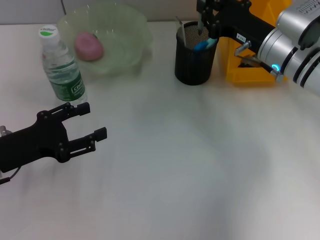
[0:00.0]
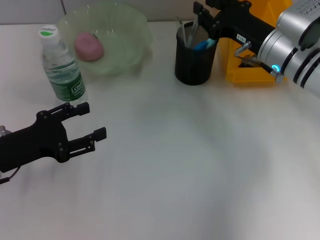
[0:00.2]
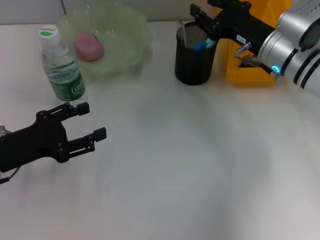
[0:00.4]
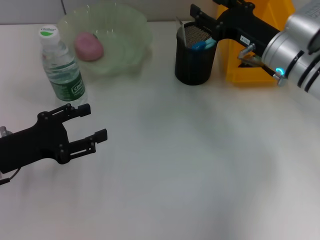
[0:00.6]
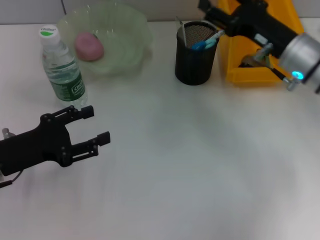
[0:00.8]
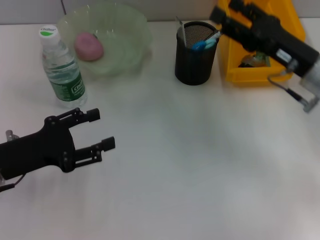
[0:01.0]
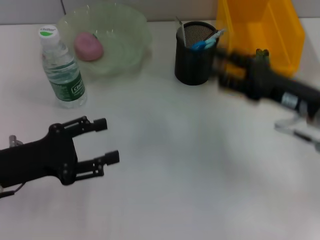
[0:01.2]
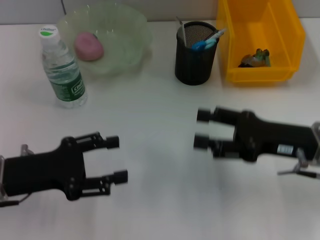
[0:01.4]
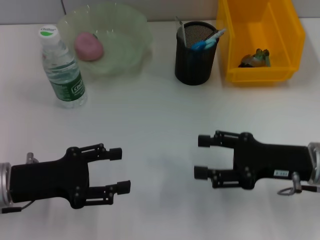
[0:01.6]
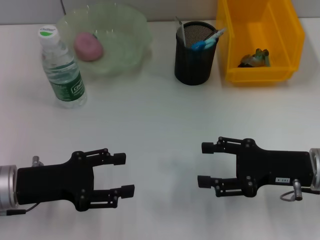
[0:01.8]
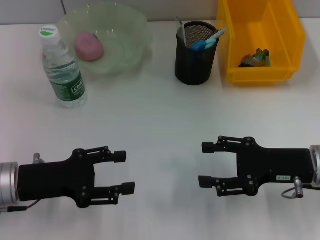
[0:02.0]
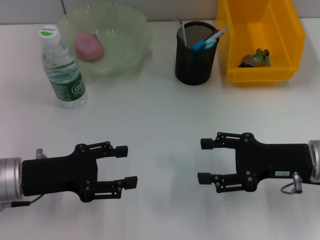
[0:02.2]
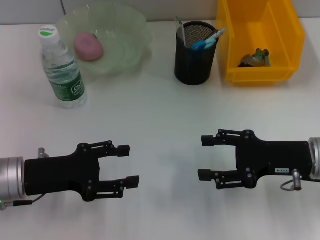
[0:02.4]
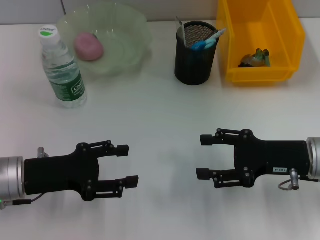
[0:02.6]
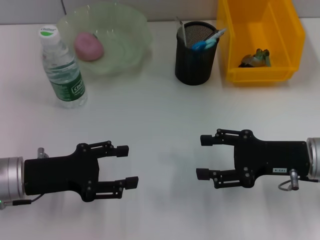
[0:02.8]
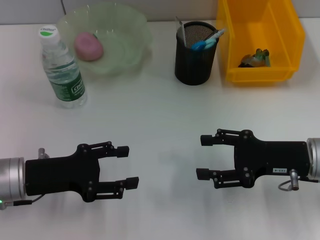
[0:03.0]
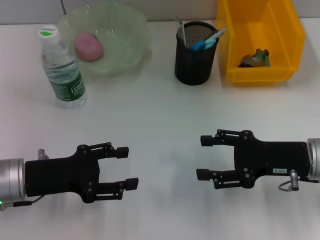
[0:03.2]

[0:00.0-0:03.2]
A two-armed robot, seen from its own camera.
0:00.0 to 0:01.6: The right gripper shifts roughly 15 cm backward, and opens its fingers.
0:01.6 to 0:03.2: There are only small adjustments of the grippers.

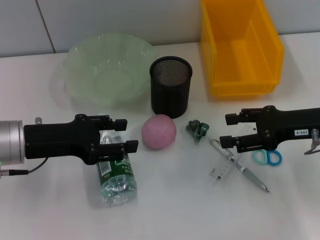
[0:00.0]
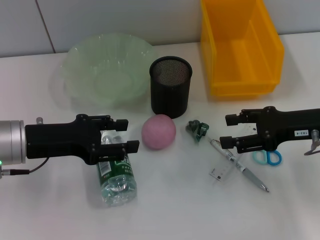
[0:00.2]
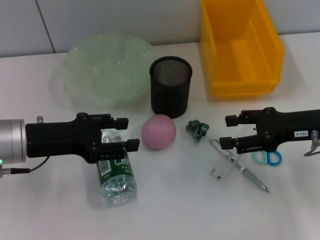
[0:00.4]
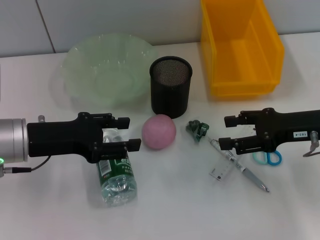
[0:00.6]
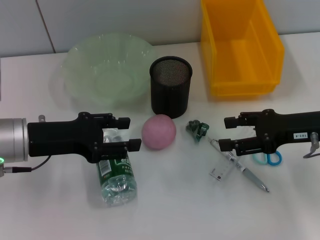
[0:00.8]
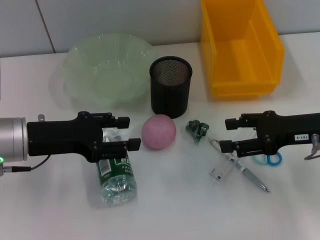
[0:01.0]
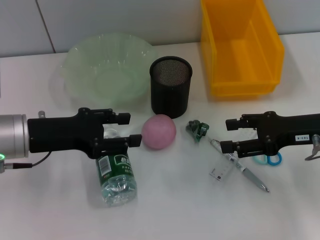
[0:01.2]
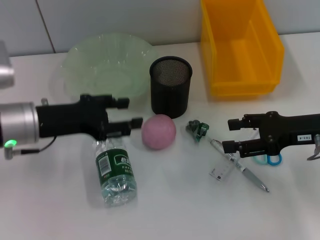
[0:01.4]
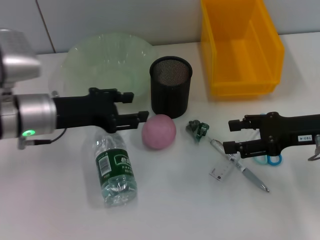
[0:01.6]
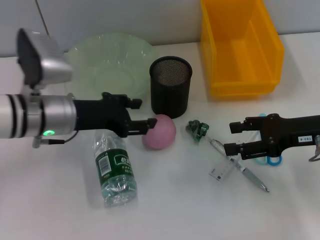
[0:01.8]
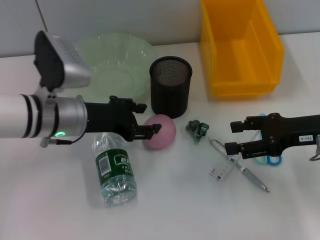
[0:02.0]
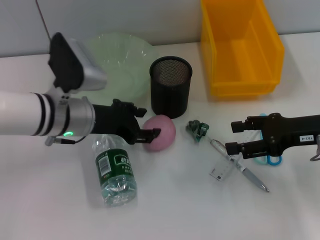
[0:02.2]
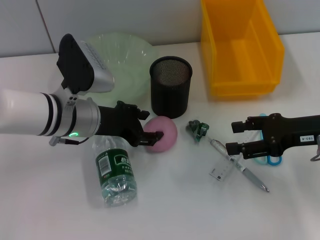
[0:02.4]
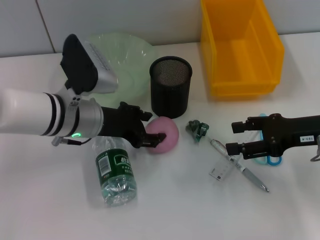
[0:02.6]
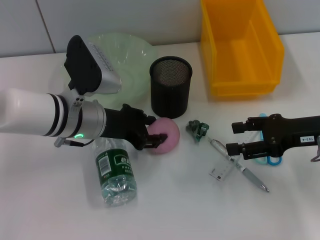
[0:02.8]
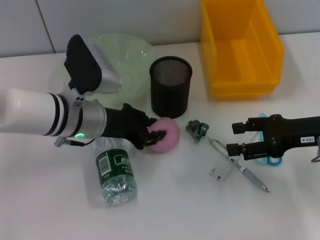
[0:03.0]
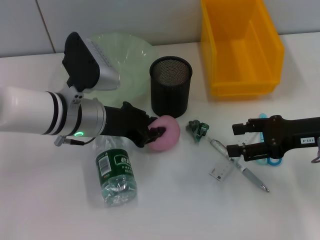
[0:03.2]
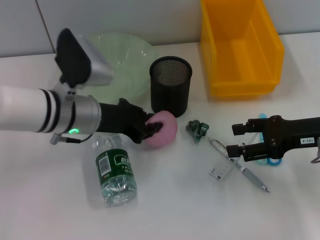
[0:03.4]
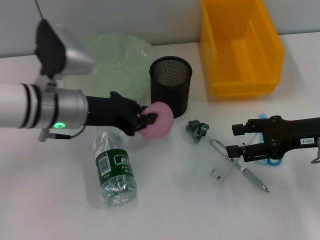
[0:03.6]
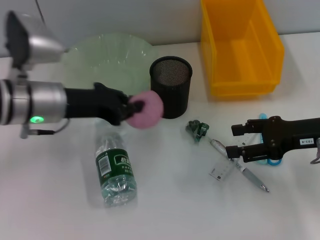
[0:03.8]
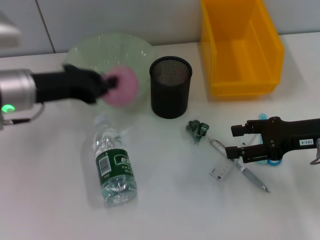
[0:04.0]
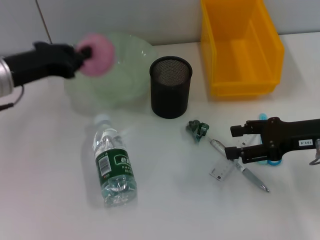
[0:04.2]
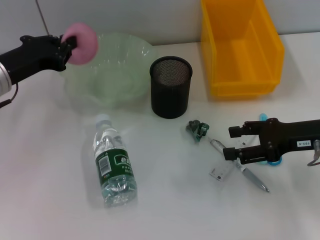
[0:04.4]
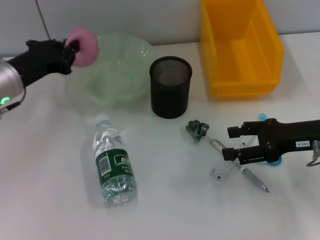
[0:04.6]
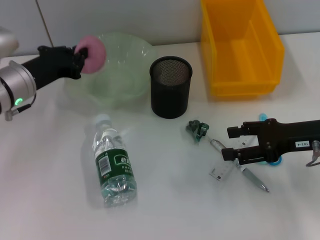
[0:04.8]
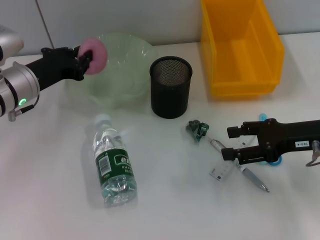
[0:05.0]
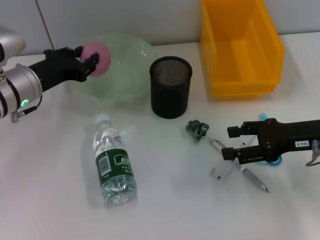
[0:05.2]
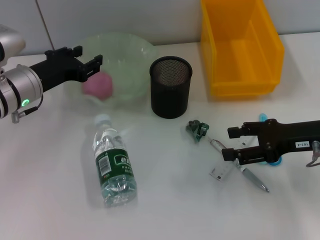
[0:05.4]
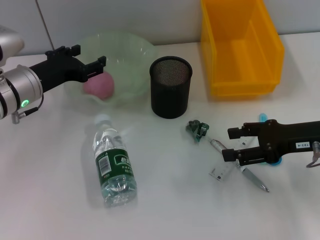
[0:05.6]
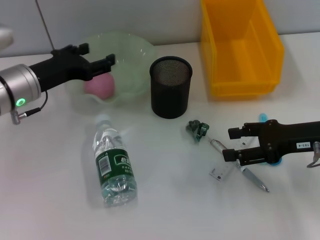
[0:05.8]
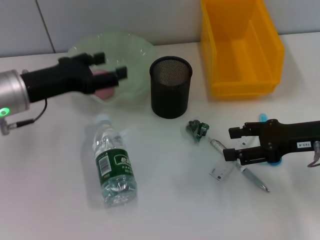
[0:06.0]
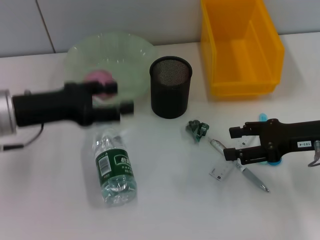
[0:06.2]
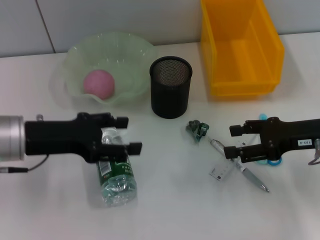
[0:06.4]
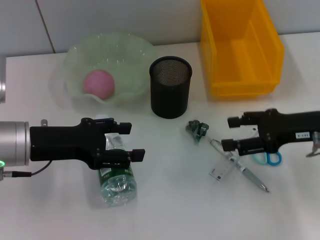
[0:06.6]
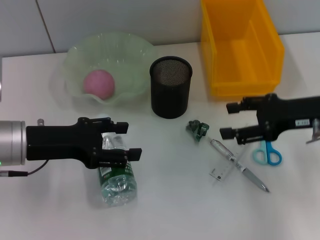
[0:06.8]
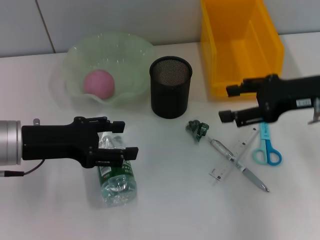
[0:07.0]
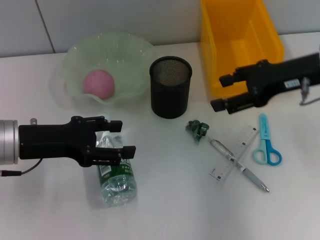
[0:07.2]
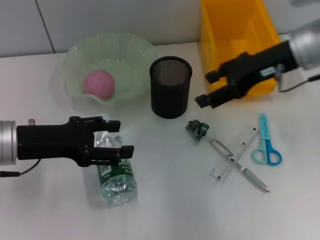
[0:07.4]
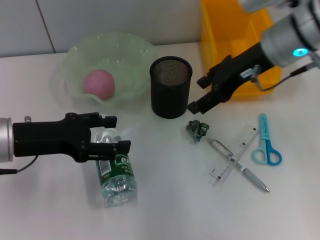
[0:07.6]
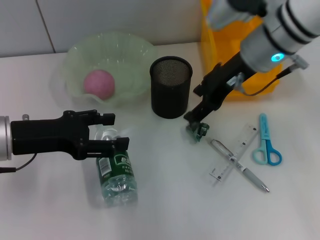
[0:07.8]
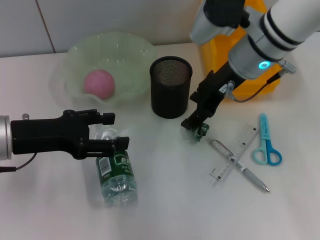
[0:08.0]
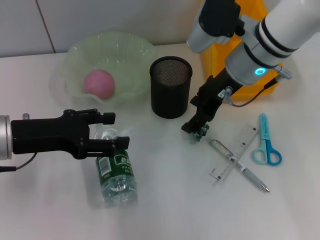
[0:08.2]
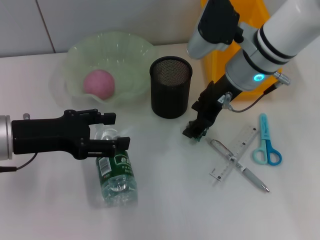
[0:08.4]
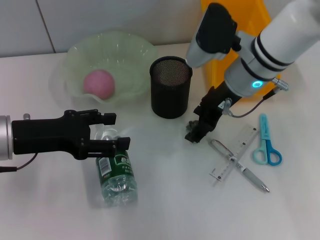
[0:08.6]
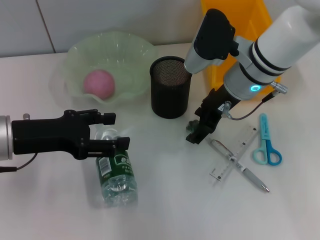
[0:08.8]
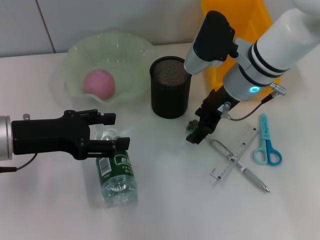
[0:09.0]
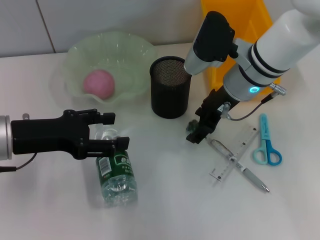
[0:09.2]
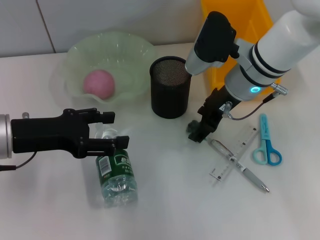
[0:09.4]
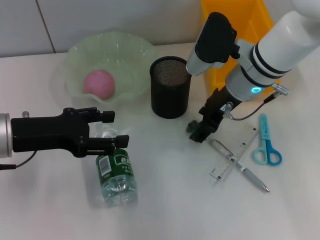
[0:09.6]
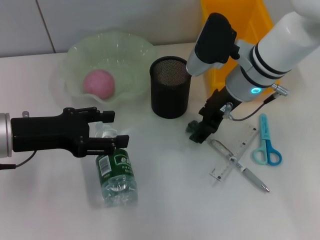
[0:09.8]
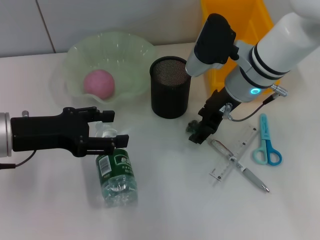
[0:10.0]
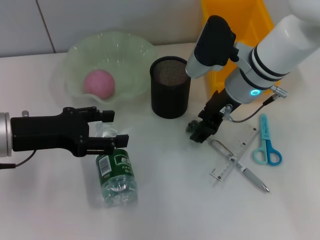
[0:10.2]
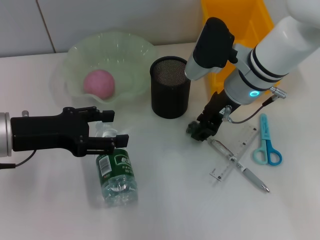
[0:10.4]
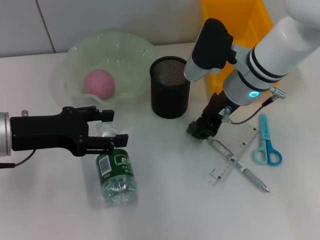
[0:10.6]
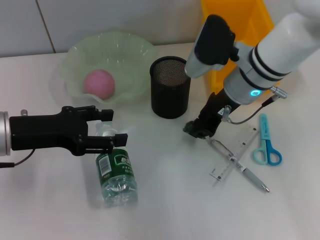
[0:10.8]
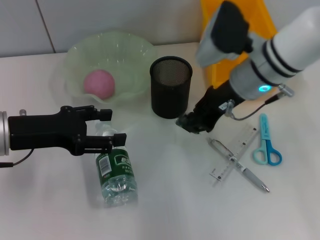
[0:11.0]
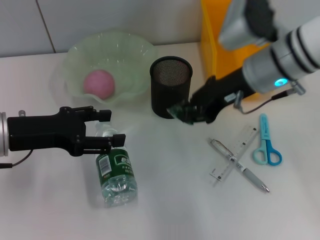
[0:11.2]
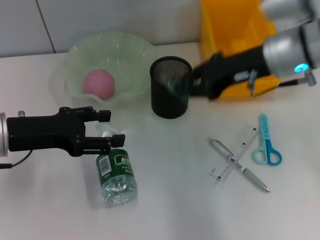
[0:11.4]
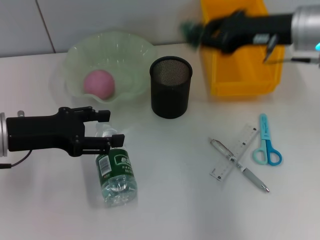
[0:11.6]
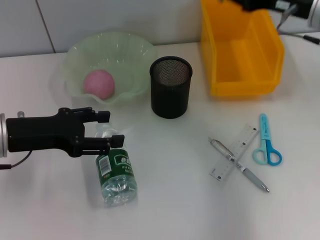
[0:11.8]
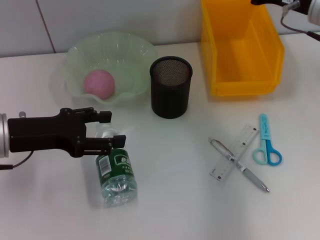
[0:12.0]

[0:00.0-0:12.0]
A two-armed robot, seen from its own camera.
Step, 0:00.0 to 0:03.0: Grab the peach with the left hand.
Step, 0:03.4 to 0:05.2: Place the peach into the fruit bowl with the left hand.
Step, 0:05.4 to 0:10.6: Grab the plastic with the right hand.
0:00.0 to 0:01.6: The grippers stay close to where they were, moving slightly.
0:01.6 to 0:03.0: The left gripper heads to the right, covering approximately 5 cm, and closes.
0:03.0 to 0:04.4: The left gripper goes approximately 10 cm to the left, and closes up.
0:04.4 to 0:06.0: The left gripper opens.
0:06.0 to 0:07.6: The right gripper shifts about 20 cm upward, to the left and forward.
0:07.6 to 0:09.0: The right gripper goes some 5 cm downward.
0:09.0 to 0:10.4: The two grippers keep their place.
0:10.4 to 0:12.0: The right gripper heads to the right and upward, covering about 15 cm, and closes.

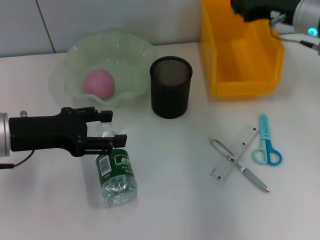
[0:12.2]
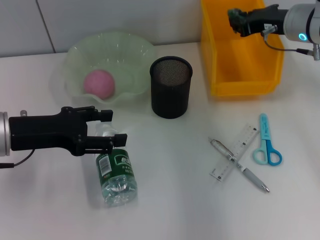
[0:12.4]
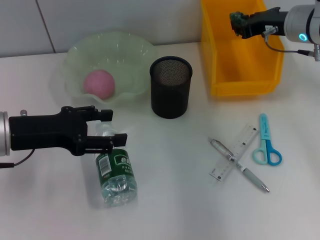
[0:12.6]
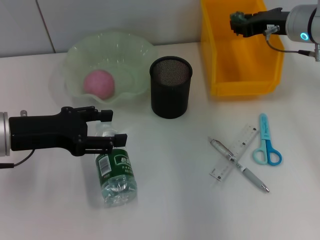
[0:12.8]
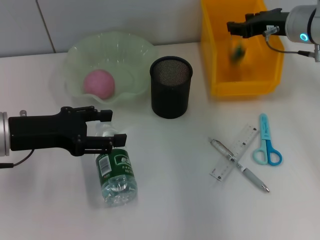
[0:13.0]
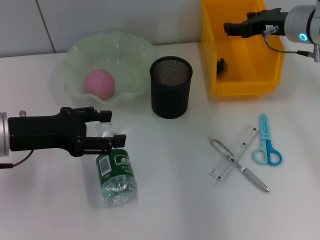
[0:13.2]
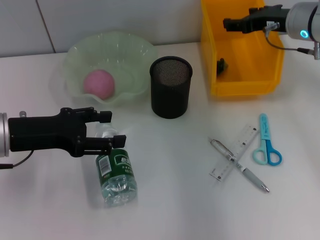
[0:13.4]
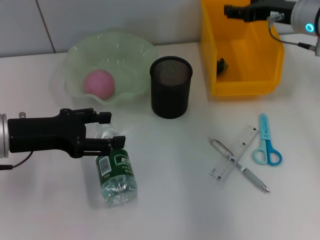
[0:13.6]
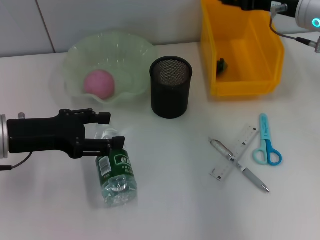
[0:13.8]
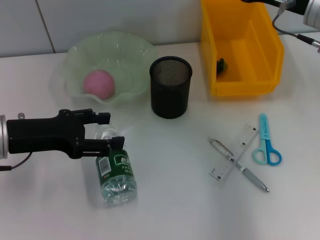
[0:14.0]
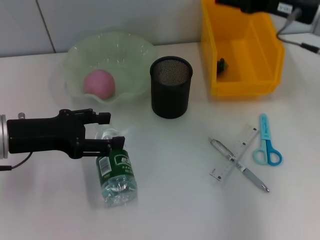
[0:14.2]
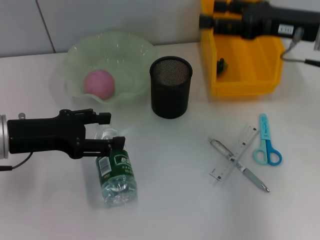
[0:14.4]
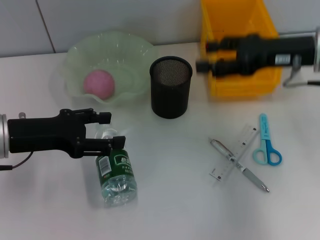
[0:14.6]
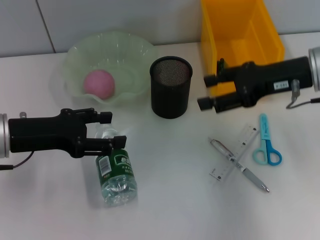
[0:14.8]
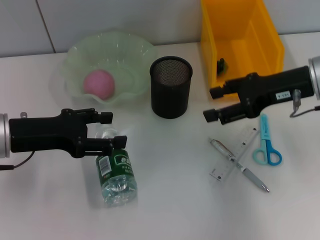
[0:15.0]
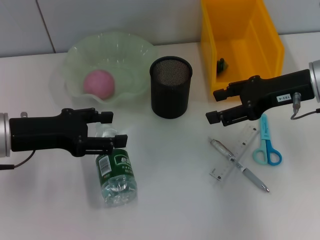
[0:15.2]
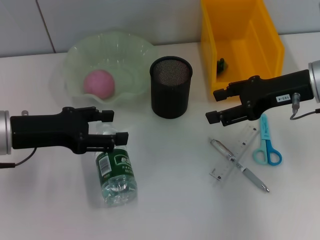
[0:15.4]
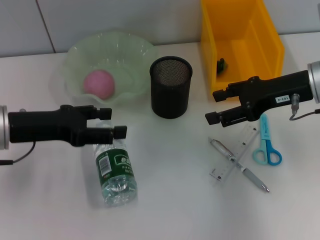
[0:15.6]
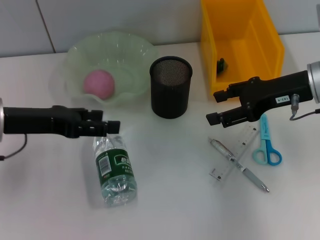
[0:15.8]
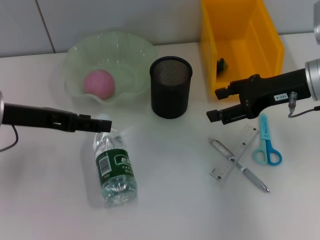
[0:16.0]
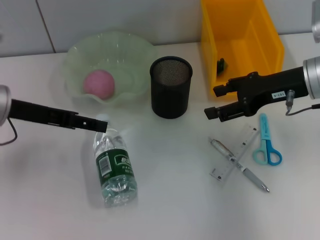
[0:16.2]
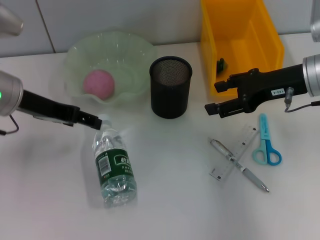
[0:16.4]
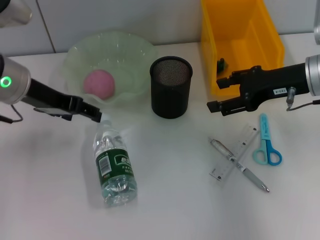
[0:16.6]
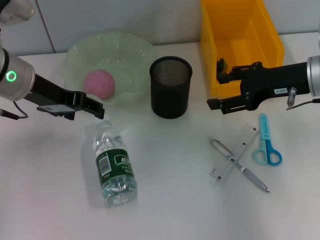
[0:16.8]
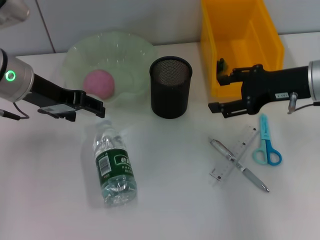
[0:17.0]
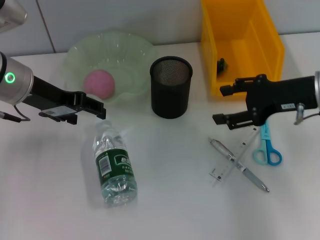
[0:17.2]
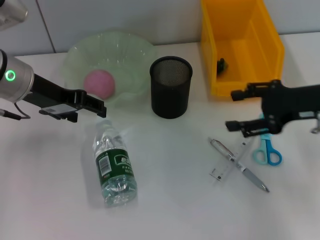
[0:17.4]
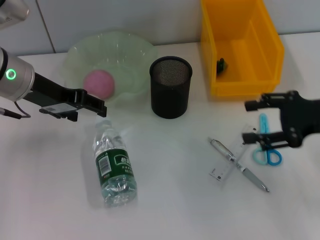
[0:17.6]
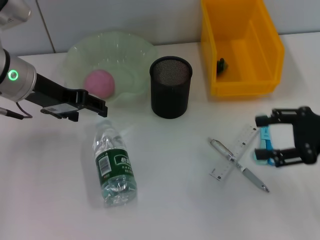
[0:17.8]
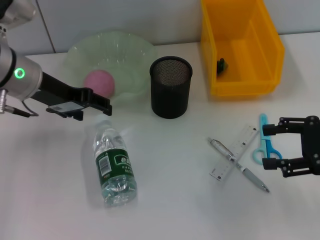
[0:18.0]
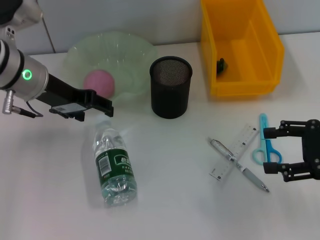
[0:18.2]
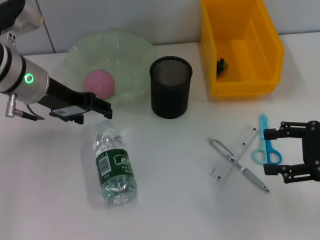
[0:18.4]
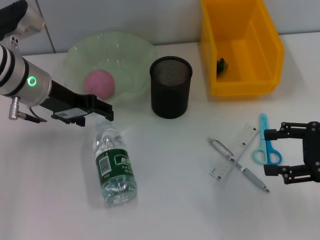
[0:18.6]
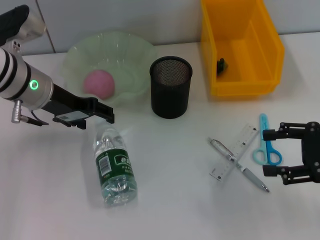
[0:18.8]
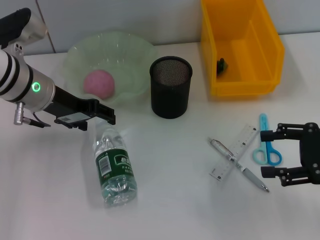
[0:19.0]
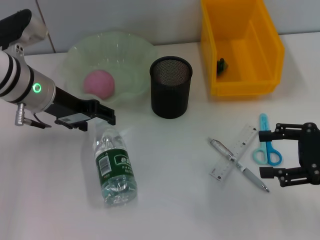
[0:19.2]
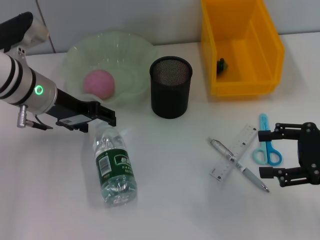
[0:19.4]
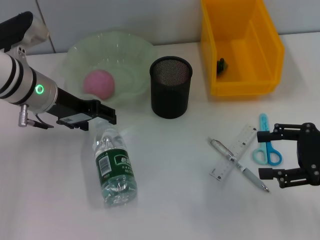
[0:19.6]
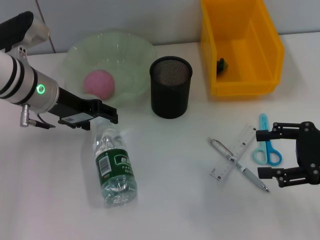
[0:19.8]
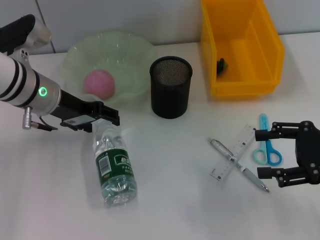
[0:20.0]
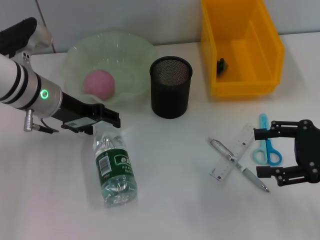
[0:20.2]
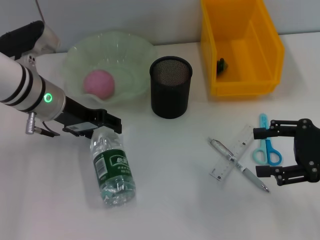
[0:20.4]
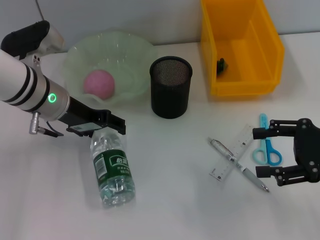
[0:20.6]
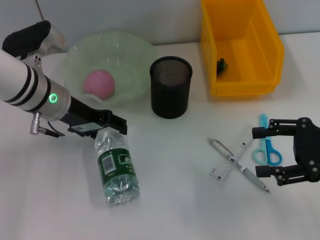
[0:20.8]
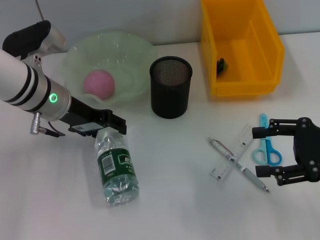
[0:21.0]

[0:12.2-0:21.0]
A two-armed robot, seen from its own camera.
0:12.2 to 0:13.6: The right gripper opens.
0:13.6 to 0:15.2: The right gripper heads backward, covering approximately 10 cm.
0:15.2 to 0:16.6: The left gripper is displaced forward and upward by some 10 cm.
0:16.6 to 0:18.0: The right gripper travels backward and to the right by some 10 cm.
0:18.0 to 0:21.0: The grippers move only a little.
